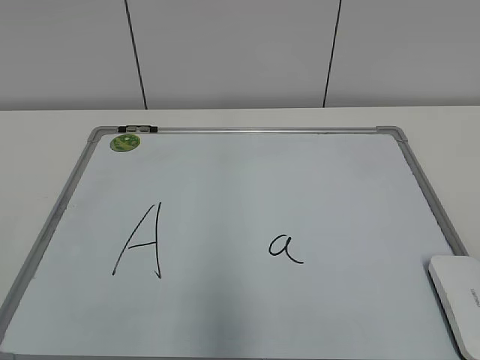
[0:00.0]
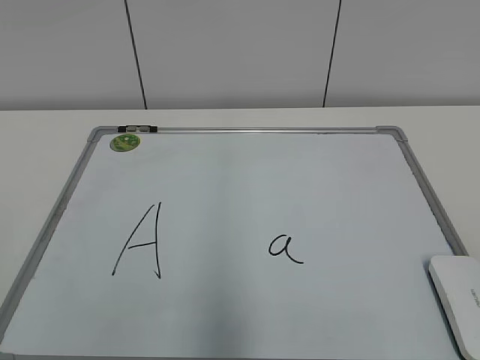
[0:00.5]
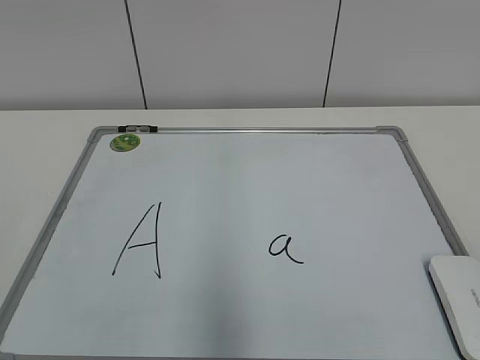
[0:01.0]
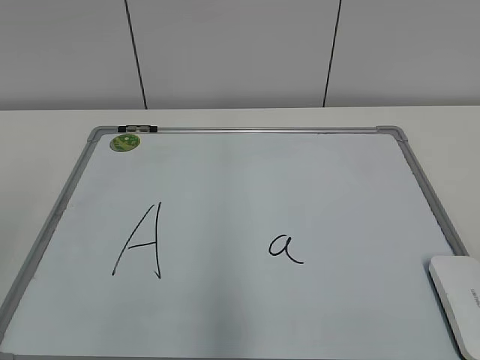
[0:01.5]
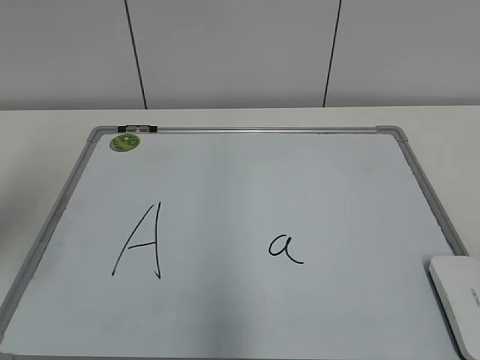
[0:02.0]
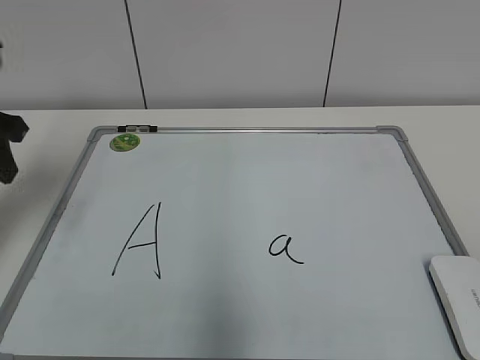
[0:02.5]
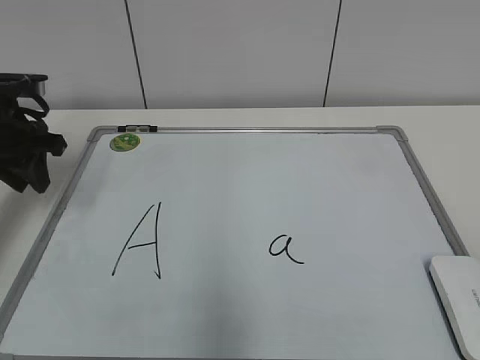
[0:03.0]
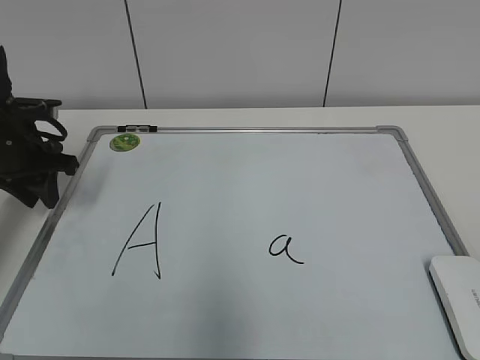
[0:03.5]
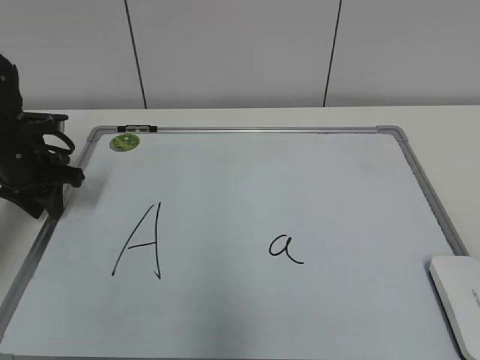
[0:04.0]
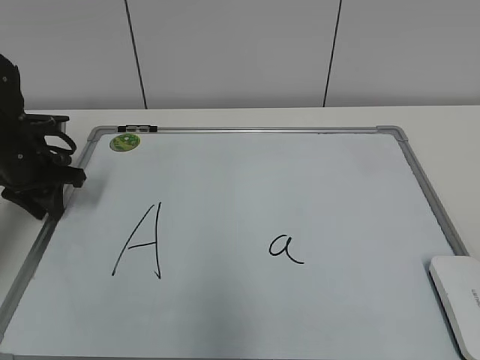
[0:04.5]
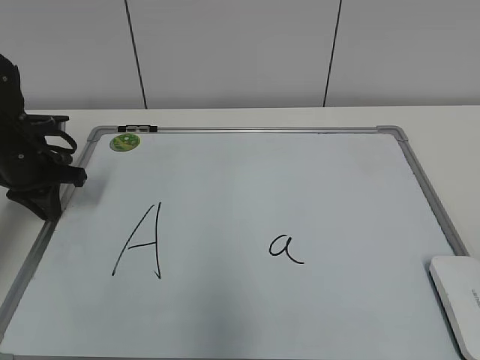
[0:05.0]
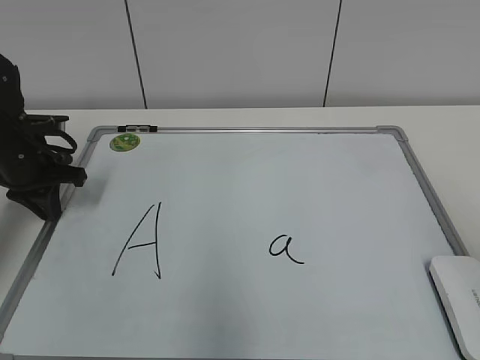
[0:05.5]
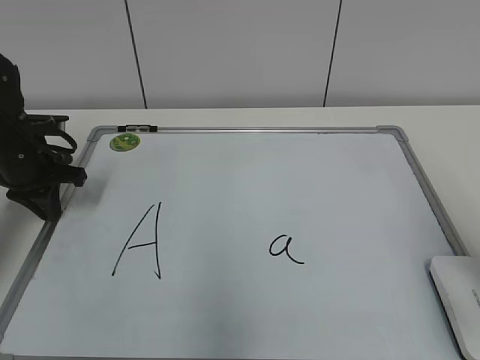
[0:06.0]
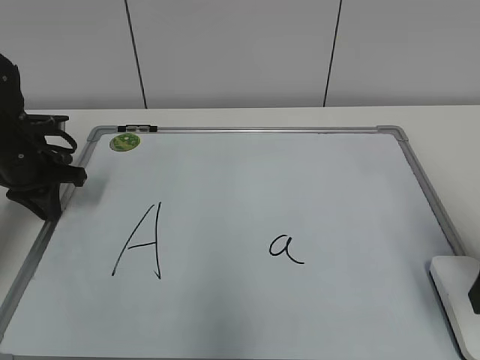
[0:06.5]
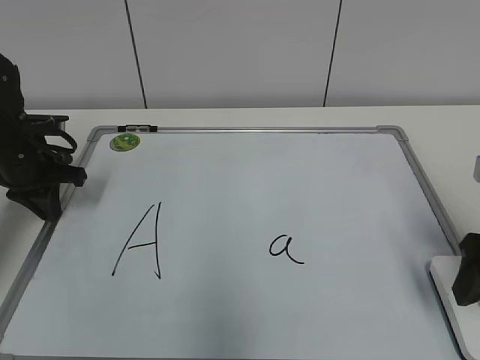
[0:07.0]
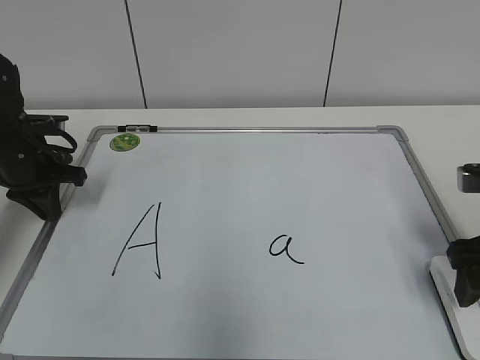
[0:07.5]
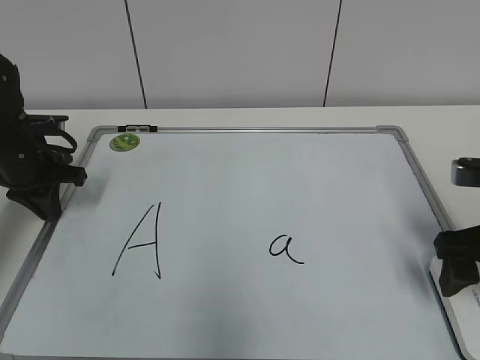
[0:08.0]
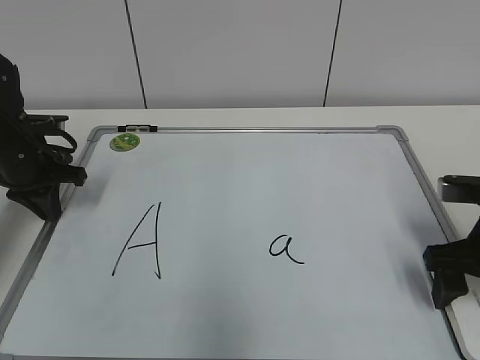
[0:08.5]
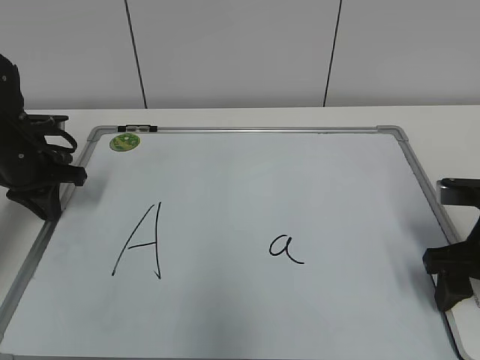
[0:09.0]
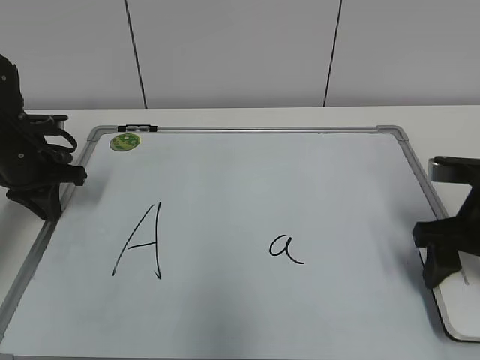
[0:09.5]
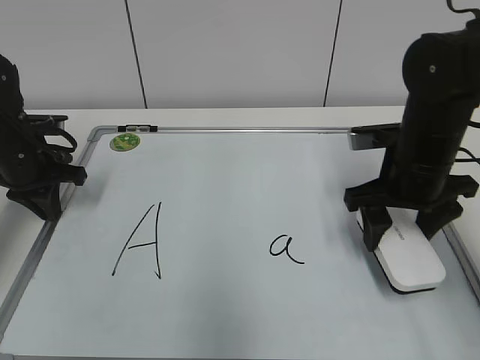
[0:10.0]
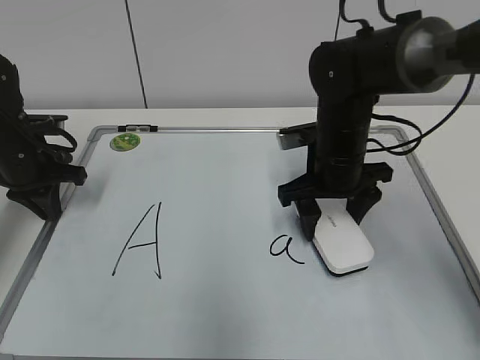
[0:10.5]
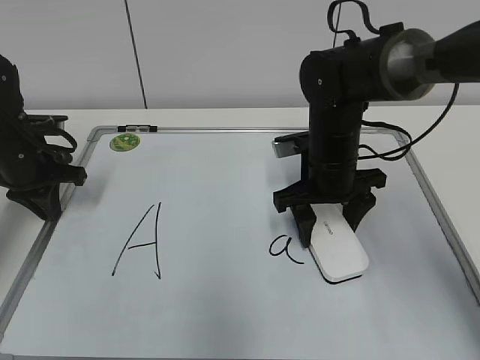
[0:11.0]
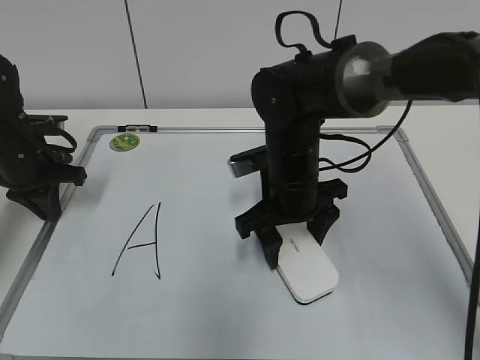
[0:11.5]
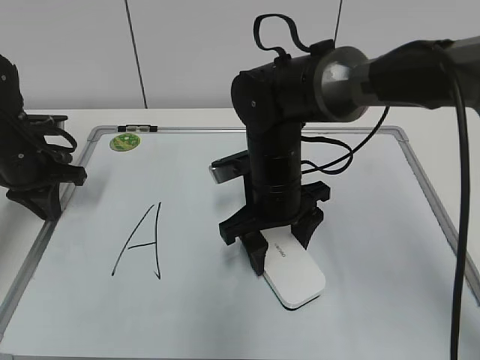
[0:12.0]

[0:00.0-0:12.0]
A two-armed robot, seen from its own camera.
Task of the whole recording: pick up the eraser on the blackboard and erase the letter "a".
Step, 0:00.0 to 0:04.5: Hold the drawing board steady with your left hand.
Step, 0:05.0 to 0:09.0: Grab the eraser with your right hand.
0:02.0 to 0:04.0: The left gripper goes some 25 cm forward and downward.
0:04.0 to 0:06.0: The right gripper moves forward, approximately 15 cm, and opens its fingers.
0:06.0 to 0:08.0: The right gripper heads forward and downward, covering approximately 15 cm, and opens.
0:08.0 to 0:10.0: The right gripper moves forward and to the left, roughly 10 cm, and closes.
0:10.0 to 0:12.0: The right gripper travels to the left by approximately 15 cm.

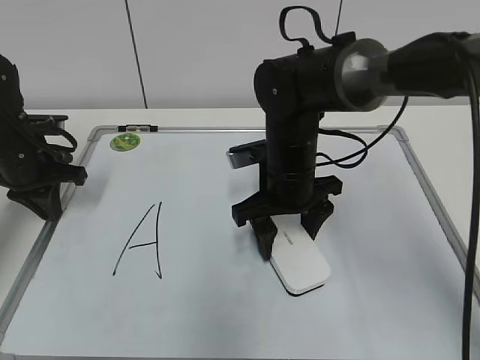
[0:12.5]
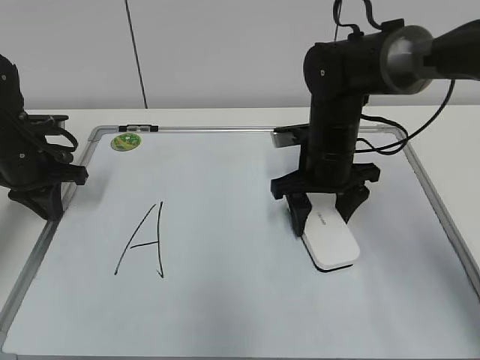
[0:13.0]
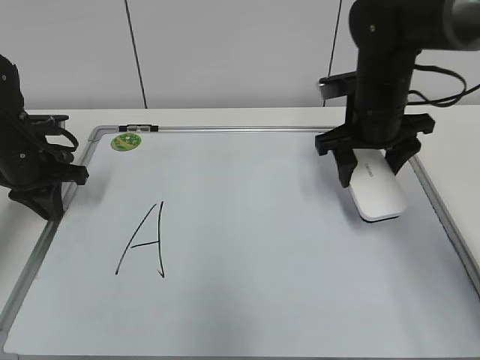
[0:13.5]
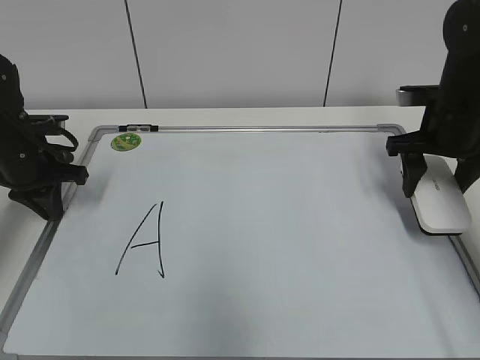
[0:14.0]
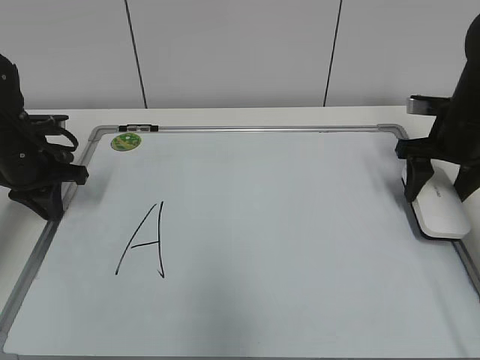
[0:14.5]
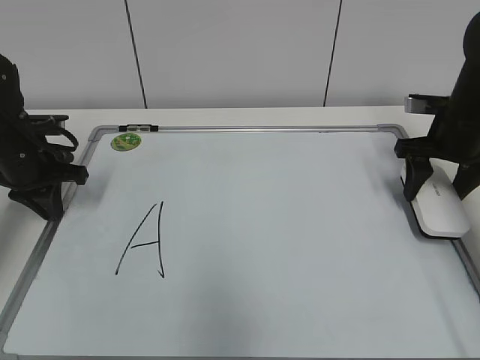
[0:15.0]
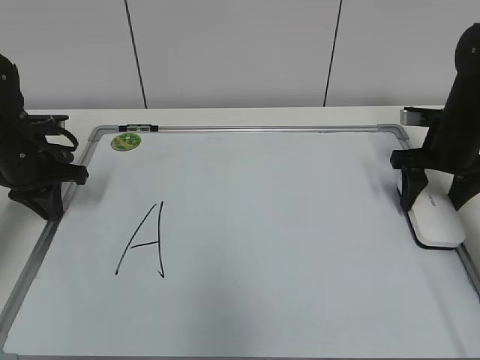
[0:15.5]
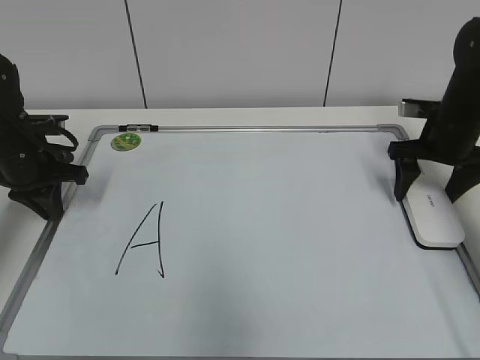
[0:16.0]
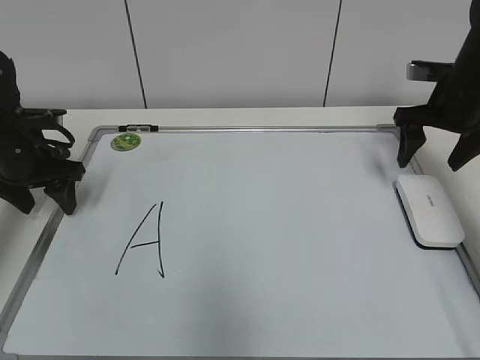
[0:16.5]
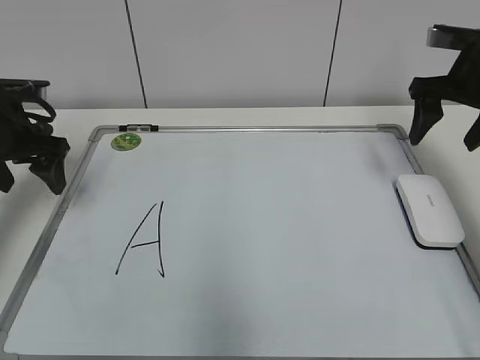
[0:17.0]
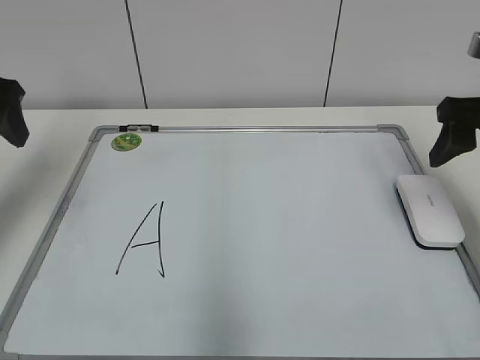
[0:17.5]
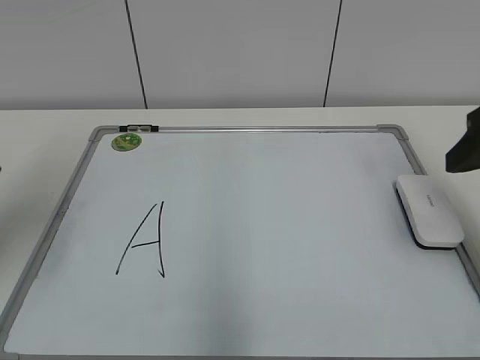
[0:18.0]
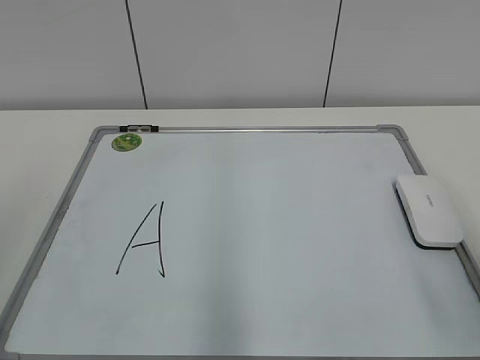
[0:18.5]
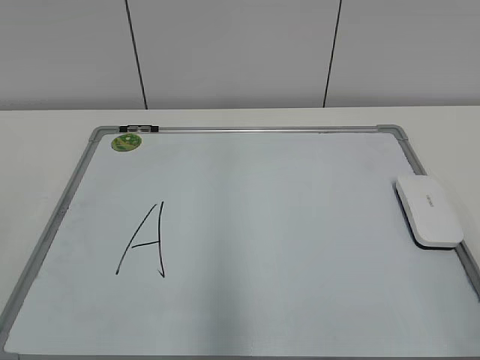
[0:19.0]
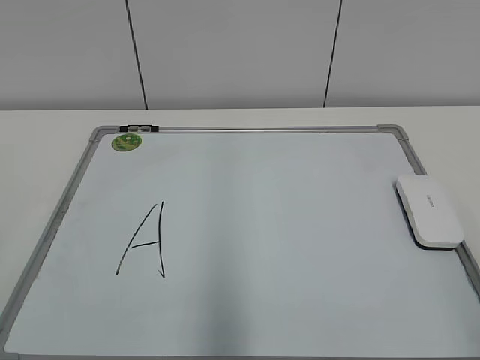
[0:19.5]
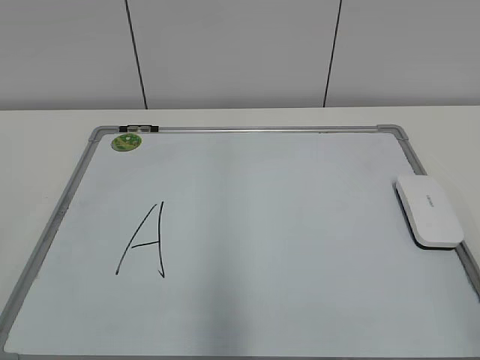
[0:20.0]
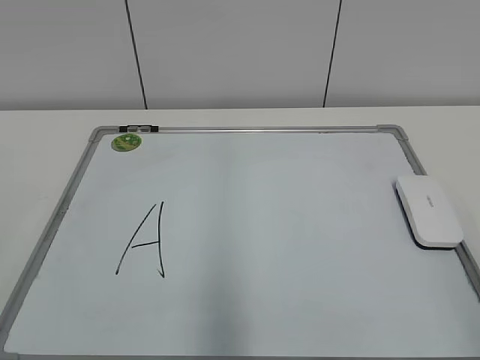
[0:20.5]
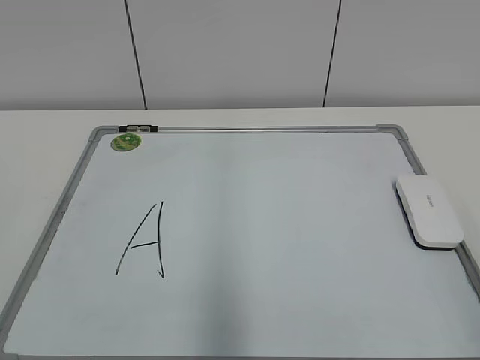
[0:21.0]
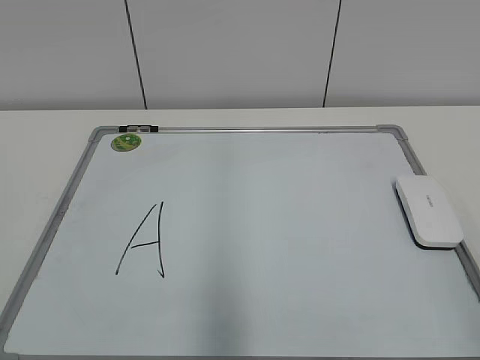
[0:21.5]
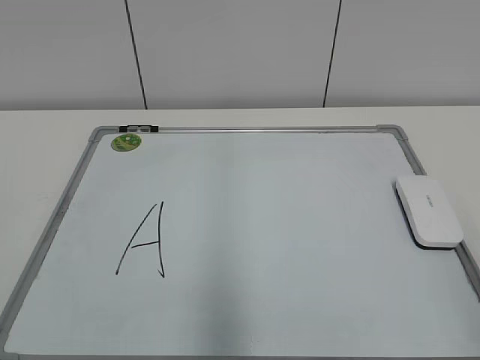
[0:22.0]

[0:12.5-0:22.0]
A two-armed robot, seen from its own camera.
Task of the whole recording: pick up the eraser on the blackboard and erase the letter "a".
Step, 0:13.5 to 0:15.5: Put down the eraser with your right hand.
0:12.5 to 0:14.5: The right gripper heads to the right, covering some 25 cm.
0:14.5 to 0:16.5: The left gripper opens. The right gripper opens its fingers.
0:16.5 to 0:18.0: The two grippers go about 20 cm backward and upward. The right gripper closes.
0:18.0 to 0:20.0: The two grippers go approximately 25 cm backward.

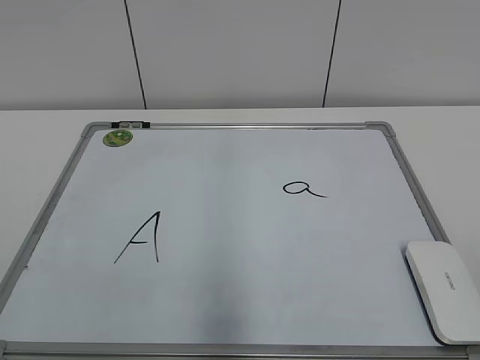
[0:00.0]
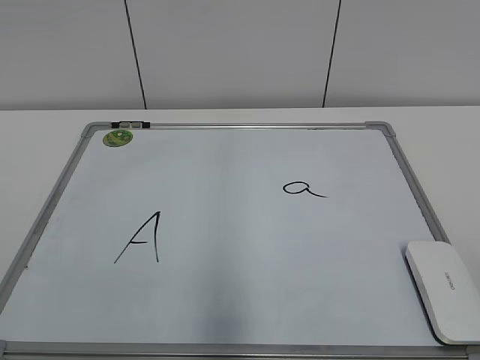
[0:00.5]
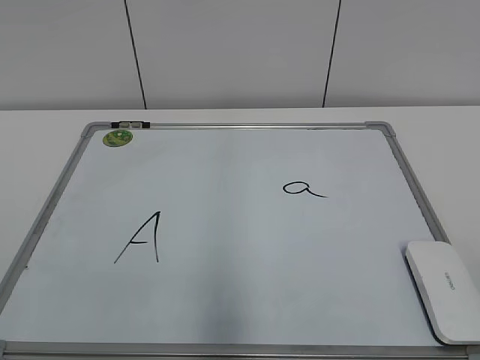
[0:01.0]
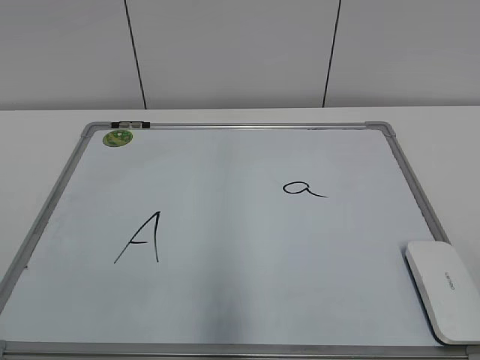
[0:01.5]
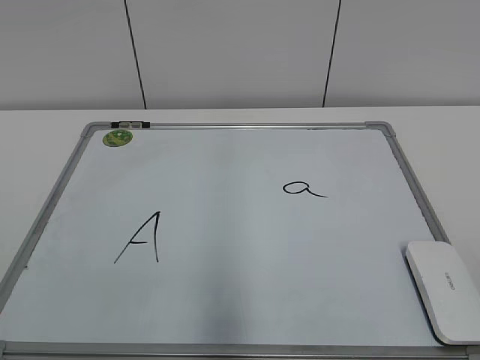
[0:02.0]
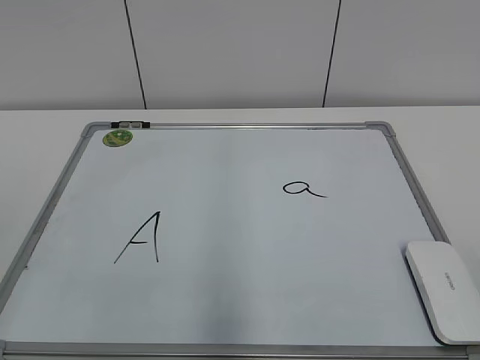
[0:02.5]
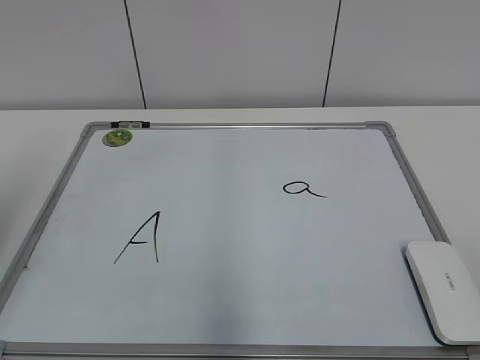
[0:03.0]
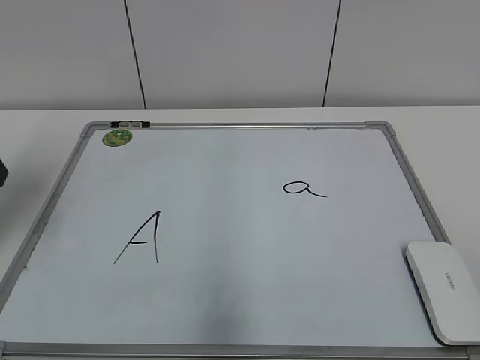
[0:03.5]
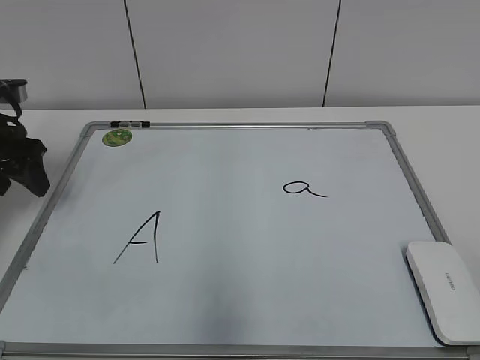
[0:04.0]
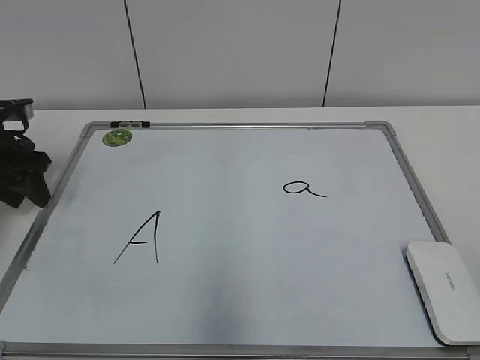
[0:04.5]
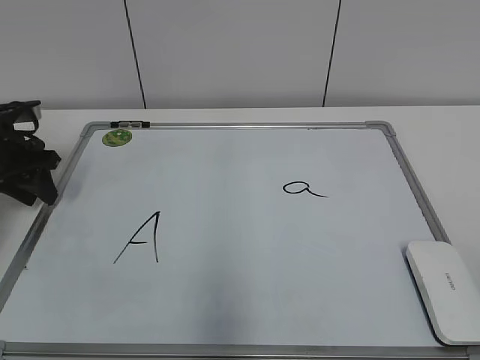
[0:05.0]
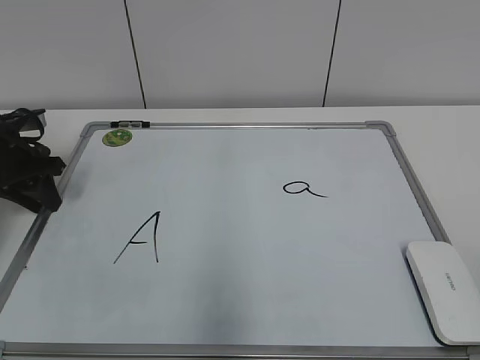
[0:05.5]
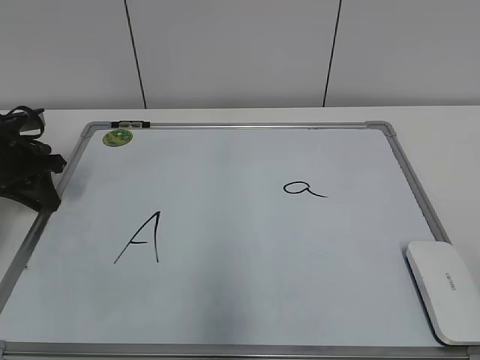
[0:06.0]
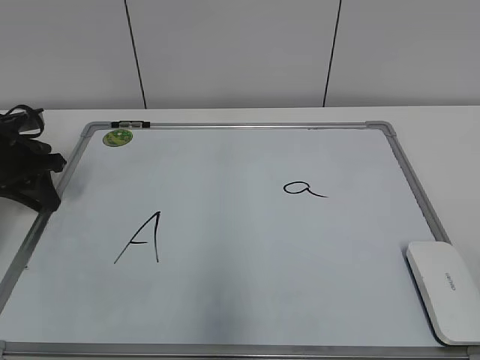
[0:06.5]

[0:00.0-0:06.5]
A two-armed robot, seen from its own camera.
Task of the whole recording: pick up the eraser on the blackboard and erase the letter "a".
Step, 0:00.0 to 0:06.0: Hold the drawing board steady with your left hand.
0:02.0 to 0:04.5: The left gripper is displaced forward by about 40 cm.
0:04.5 to 0:06.5: The left gripper closes up.
